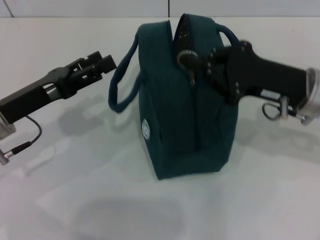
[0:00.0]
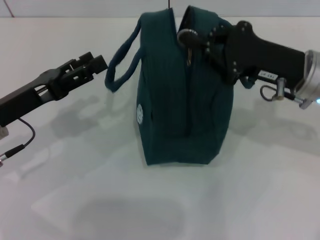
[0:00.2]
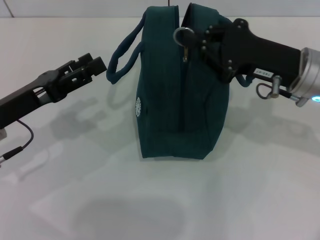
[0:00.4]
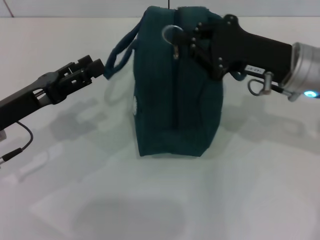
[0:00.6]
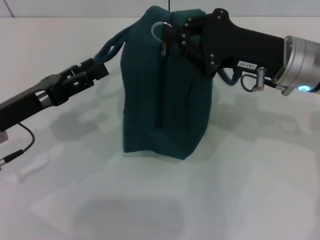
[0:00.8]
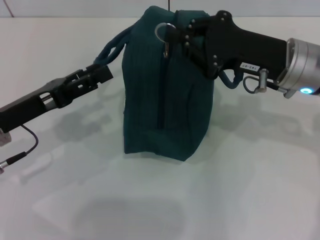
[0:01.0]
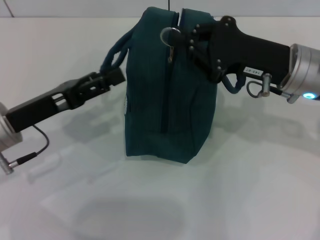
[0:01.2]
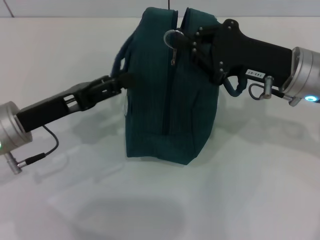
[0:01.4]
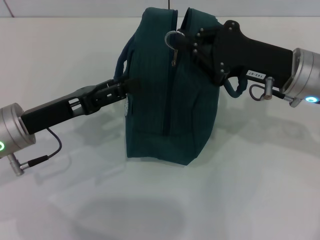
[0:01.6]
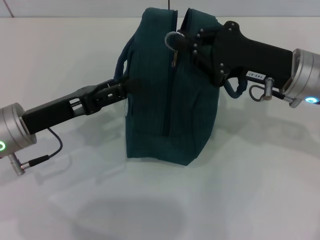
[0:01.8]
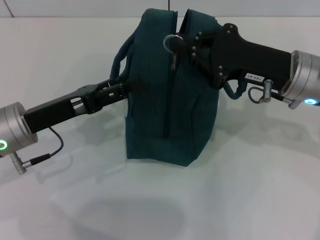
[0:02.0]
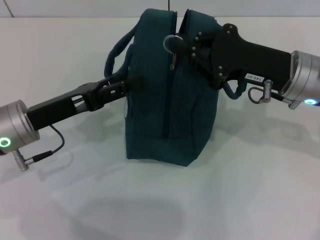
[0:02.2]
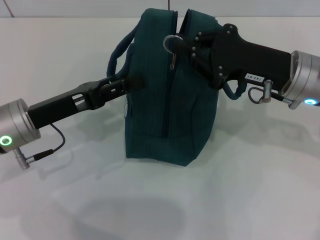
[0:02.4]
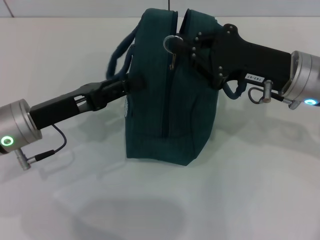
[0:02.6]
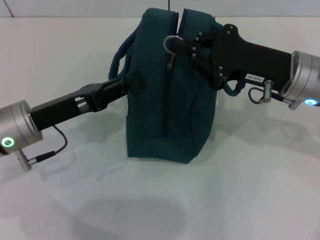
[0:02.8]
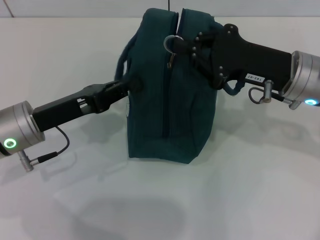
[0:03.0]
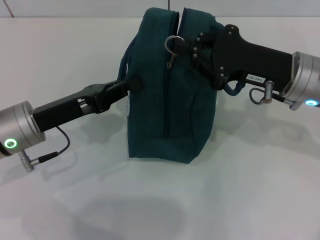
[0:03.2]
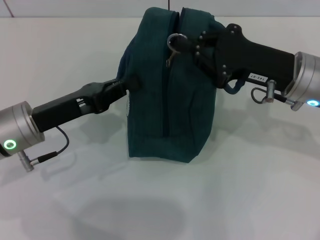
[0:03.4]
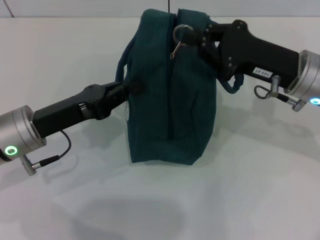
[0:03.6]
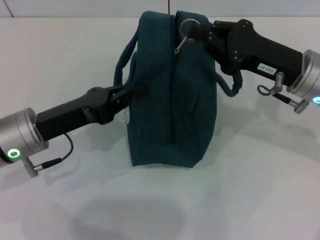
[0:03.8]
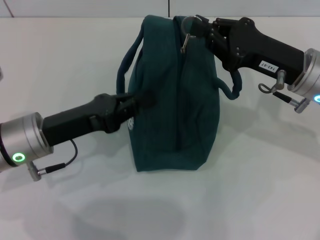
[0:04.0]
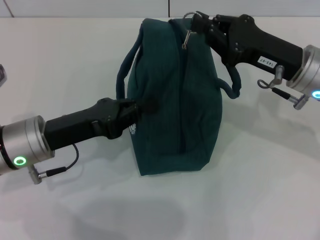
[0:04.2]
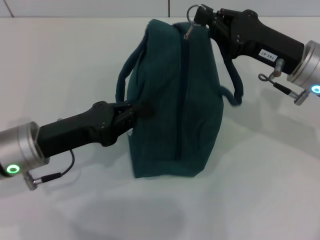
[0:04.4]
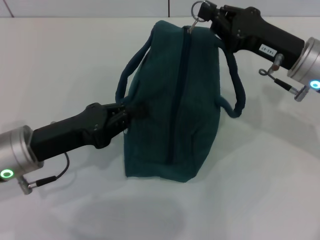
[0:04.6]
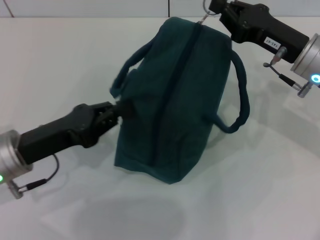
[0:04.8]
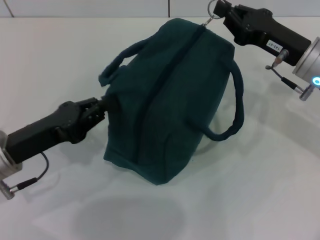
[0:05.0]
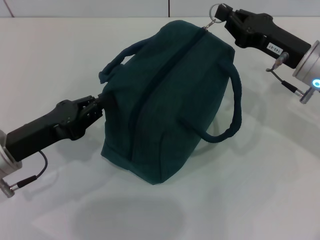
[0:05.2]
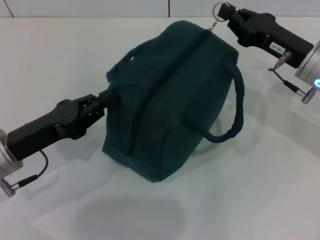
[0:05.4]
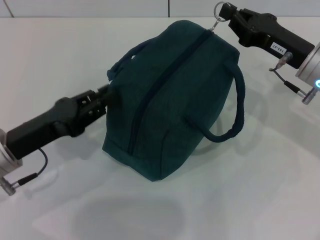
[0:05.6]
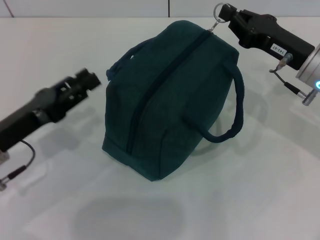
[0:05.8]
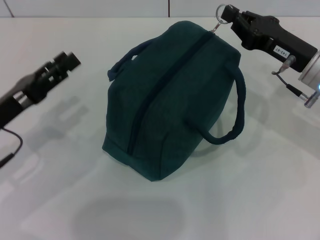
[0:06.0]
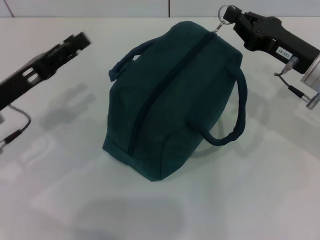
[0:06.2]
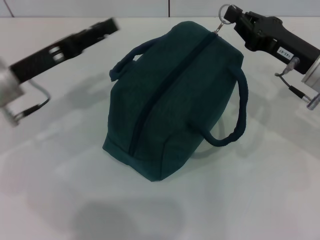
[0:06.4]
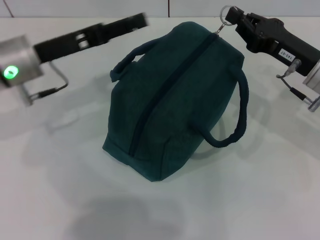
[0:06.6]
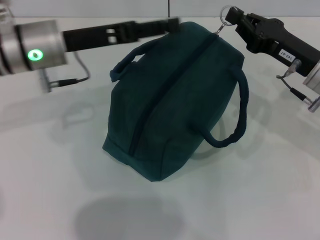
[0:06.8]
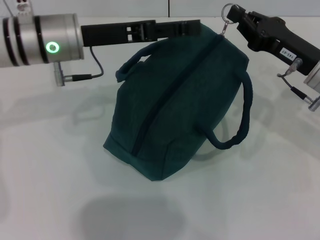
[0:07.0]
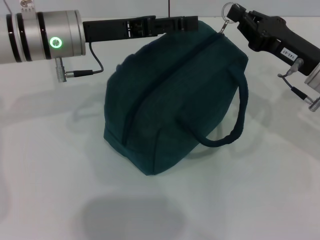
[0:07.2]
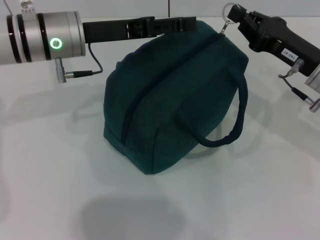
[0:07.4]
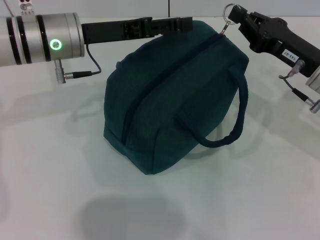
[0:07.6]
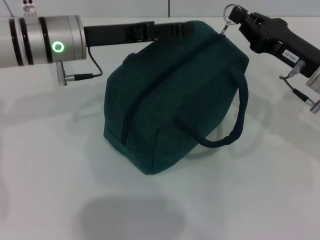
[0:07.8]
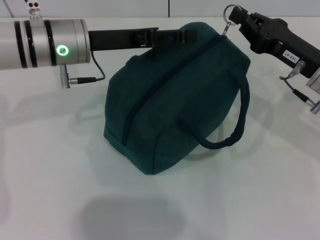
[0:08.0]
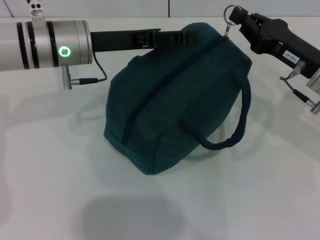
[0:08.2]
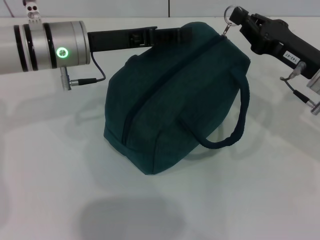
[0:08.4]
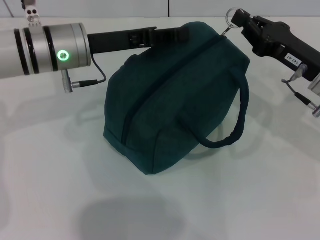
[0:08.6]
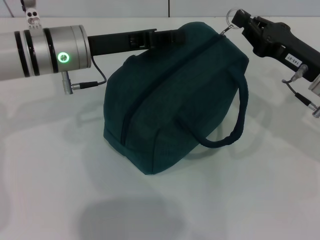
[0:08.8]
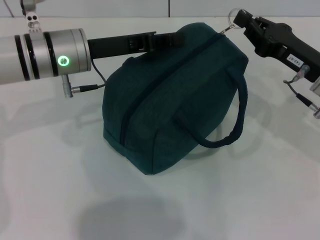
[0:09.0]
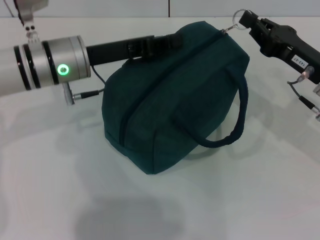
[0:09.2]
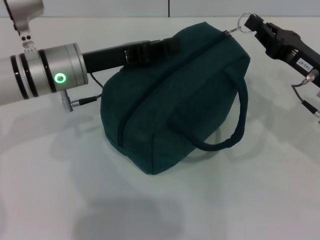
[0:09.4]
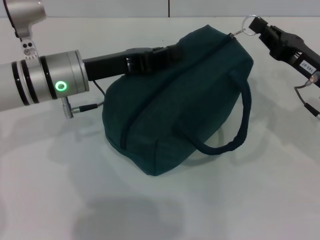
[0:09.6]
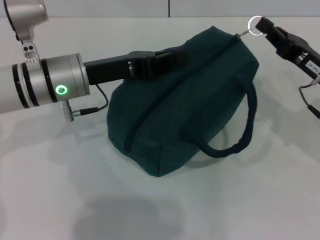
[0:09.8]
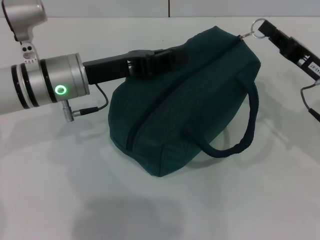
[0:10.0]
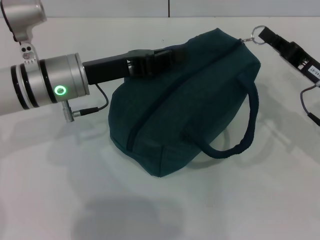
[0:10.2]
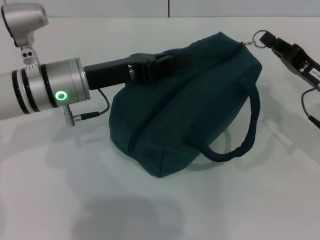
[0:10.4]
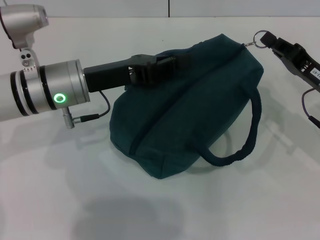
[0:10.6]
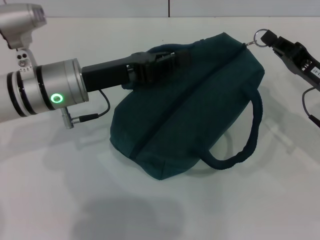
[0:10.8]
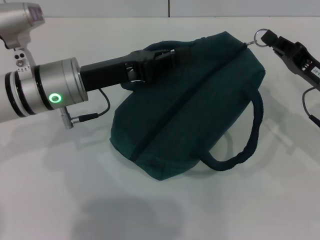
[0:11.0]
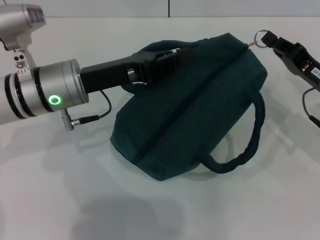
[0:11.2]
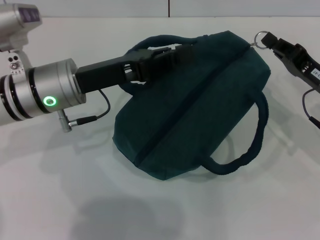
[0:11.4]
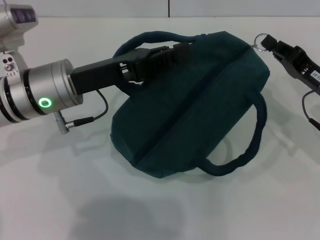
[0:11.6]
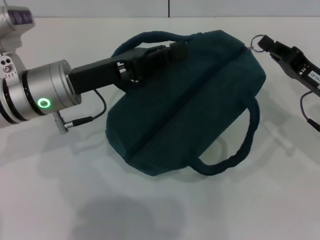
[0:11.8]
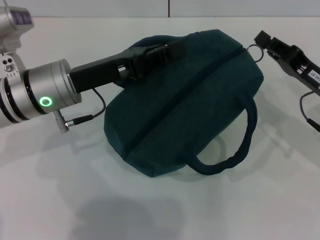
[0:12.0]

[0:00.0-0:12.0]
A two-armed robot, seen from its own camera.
0:01.6 to 0:03.0: The left gripper closes.
0:04.4 to 0:06.0: The left gripper moves to the left, approximately 5 cm, and opens its fingers.
0:06.0 to 0:07.6: The left gripper goes approximately 20 cm forward, to the right and upward, and opens.
0:07.6 to 0:09.0: The left gripper closes.
0:10.4 to 0:12.0: The grippers make only small movements.

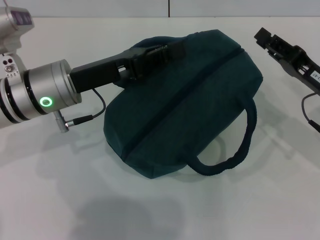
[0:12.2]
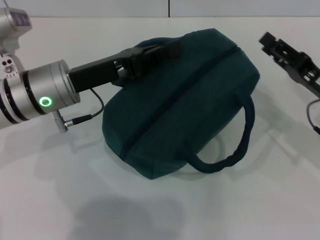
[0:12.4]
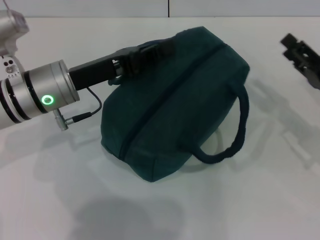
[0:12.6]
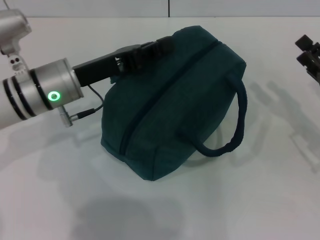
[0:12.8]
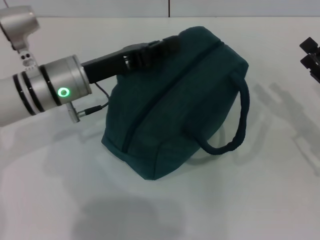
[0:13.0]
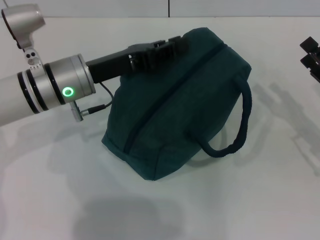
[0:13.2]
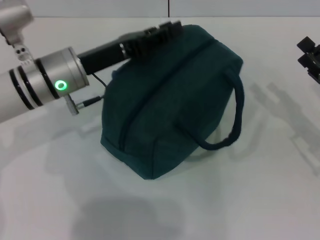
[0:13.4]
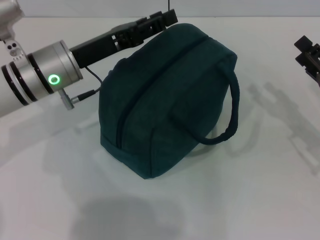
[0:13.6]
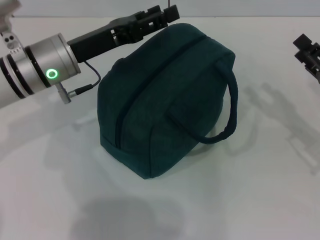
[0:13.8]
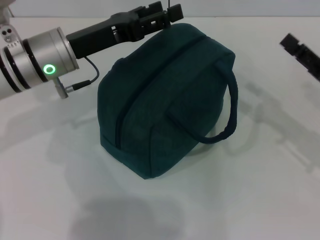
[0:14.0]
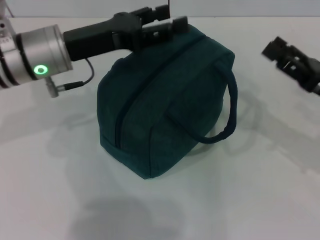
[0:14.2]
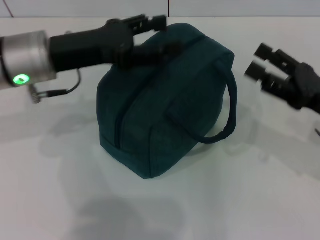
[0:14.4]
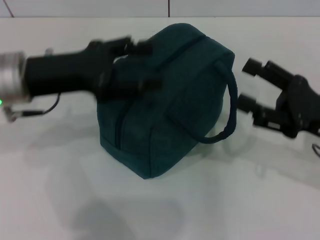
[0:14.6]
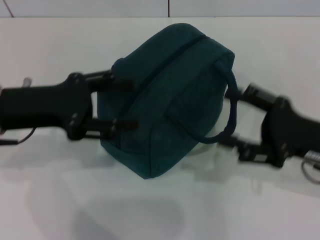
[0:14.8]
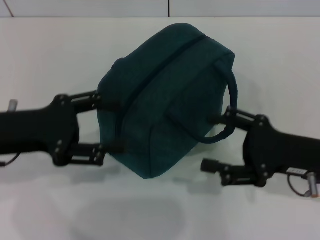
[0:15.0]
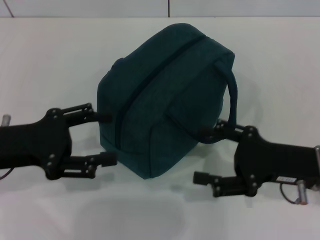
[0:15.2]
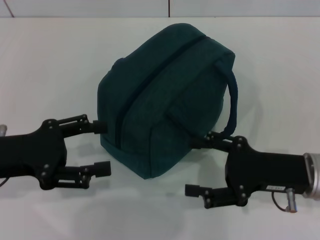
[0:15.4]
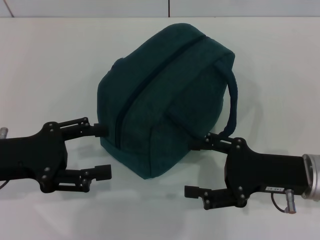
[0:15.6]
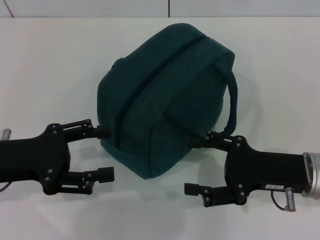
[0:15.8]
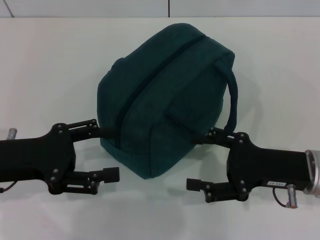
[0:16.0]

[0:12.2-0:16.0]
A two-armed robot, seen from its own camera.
Step, 0:12.2 to 0:13.4: Hold the lunch bag with your left hand.
0:12.2 to 0:13.4: The right gripper shifts by roughly 5 cm, and opens up.
0:13.4 to 0:14.8: The left gripper heads to the left and backward, covering some 10 cm, and opens. The right gripper heads to the left, covering approximately 5 cm.
0:14.8 to 0:16.0: The left gripper shifts by roughly 5 cm.
